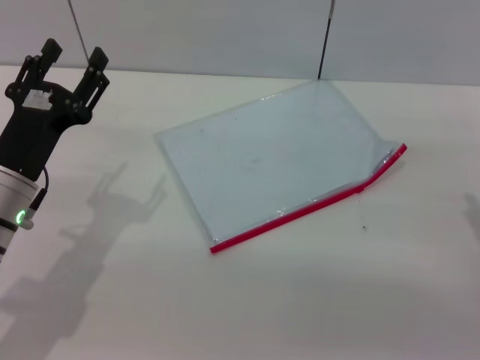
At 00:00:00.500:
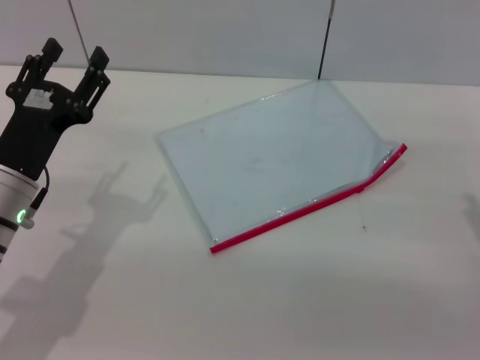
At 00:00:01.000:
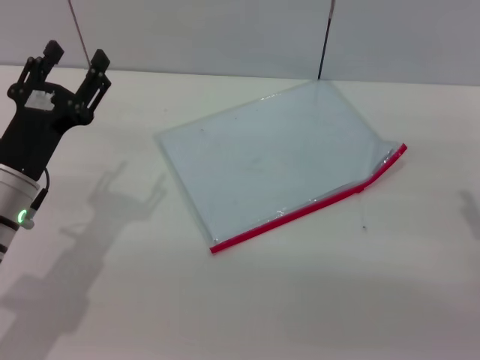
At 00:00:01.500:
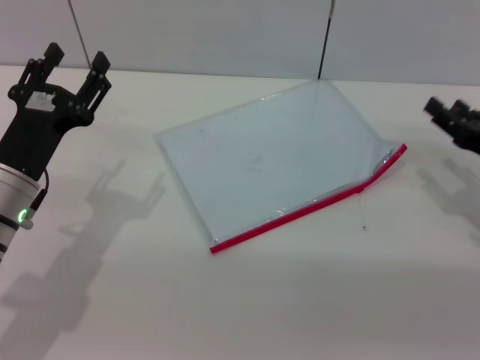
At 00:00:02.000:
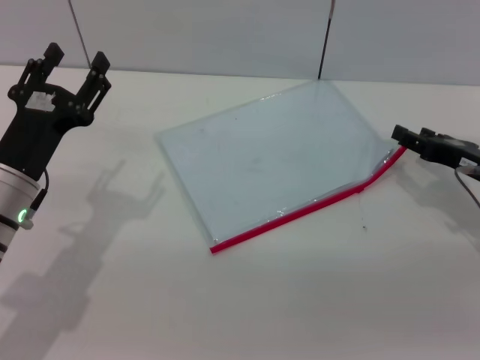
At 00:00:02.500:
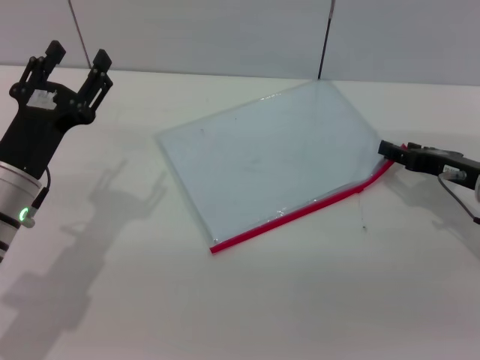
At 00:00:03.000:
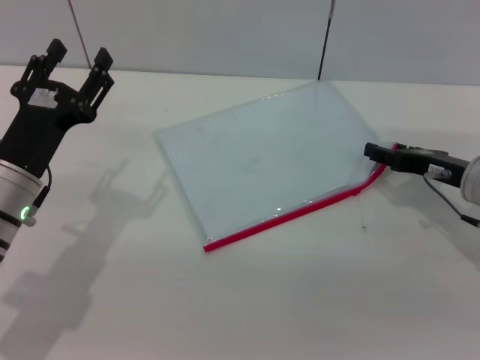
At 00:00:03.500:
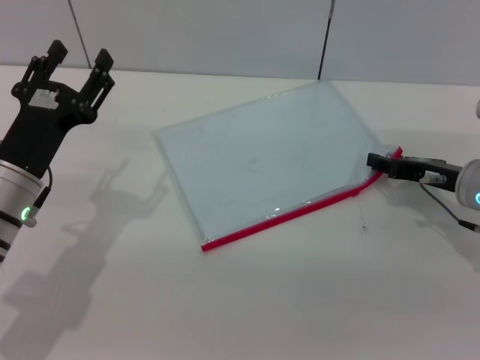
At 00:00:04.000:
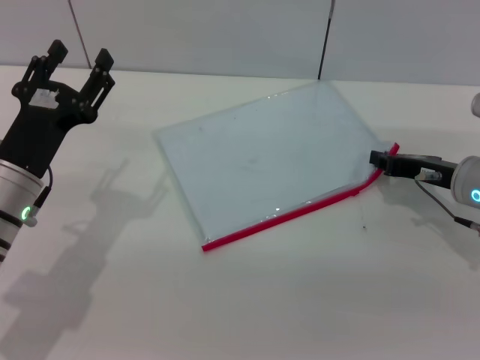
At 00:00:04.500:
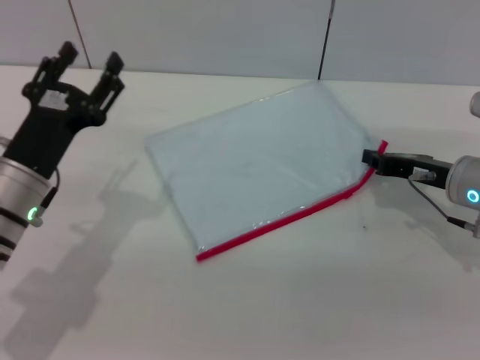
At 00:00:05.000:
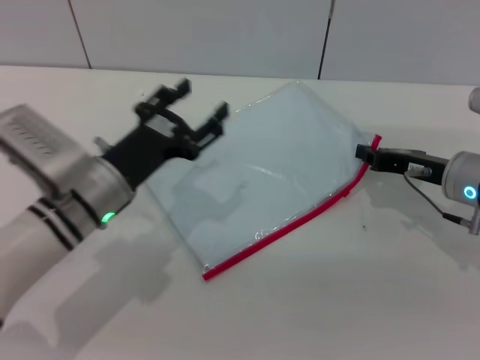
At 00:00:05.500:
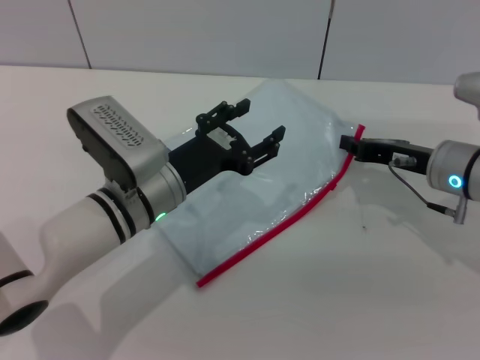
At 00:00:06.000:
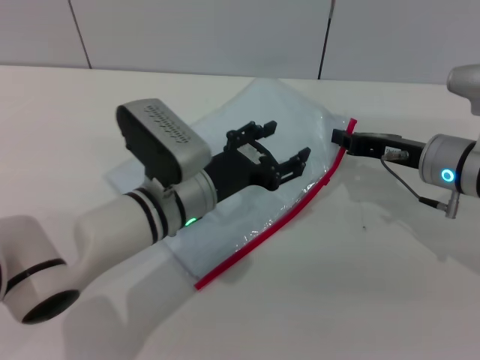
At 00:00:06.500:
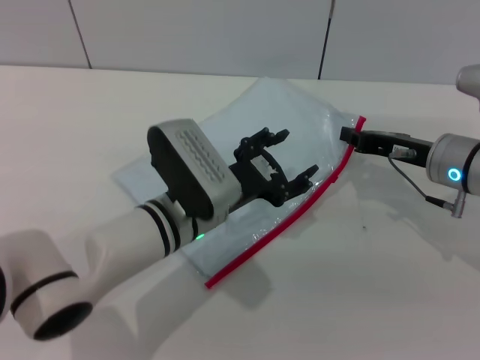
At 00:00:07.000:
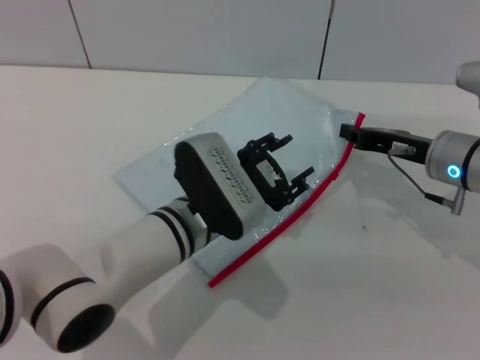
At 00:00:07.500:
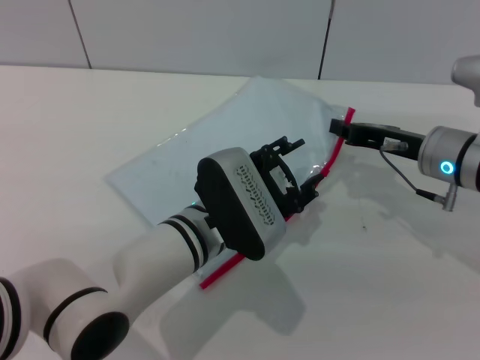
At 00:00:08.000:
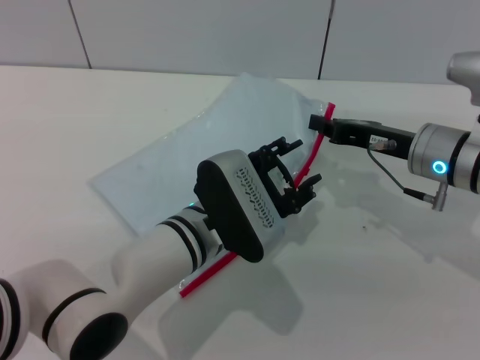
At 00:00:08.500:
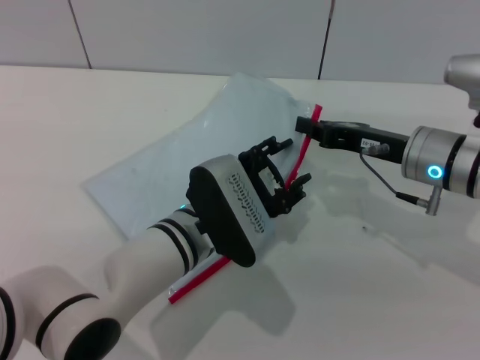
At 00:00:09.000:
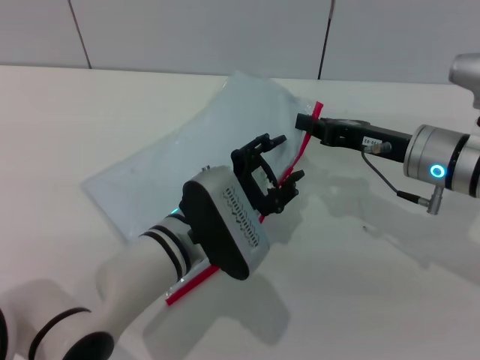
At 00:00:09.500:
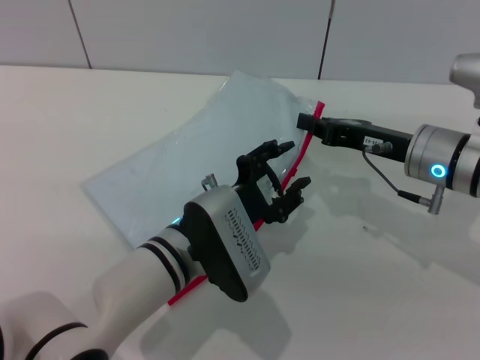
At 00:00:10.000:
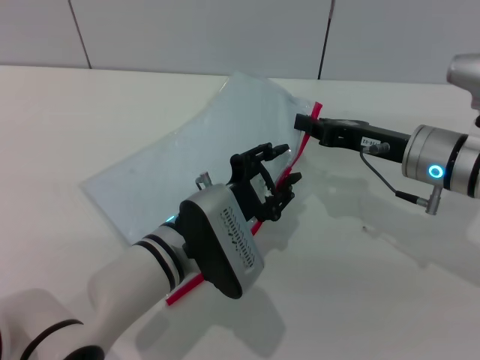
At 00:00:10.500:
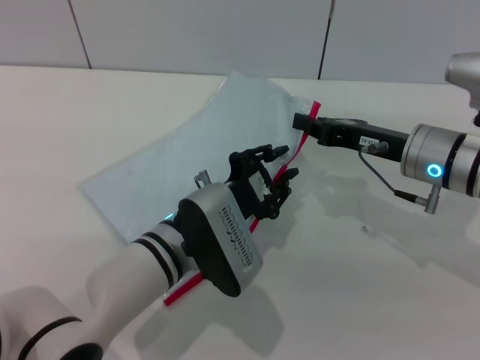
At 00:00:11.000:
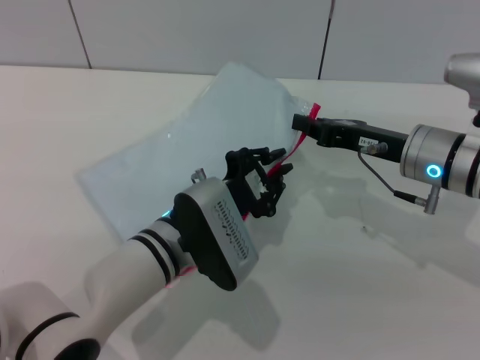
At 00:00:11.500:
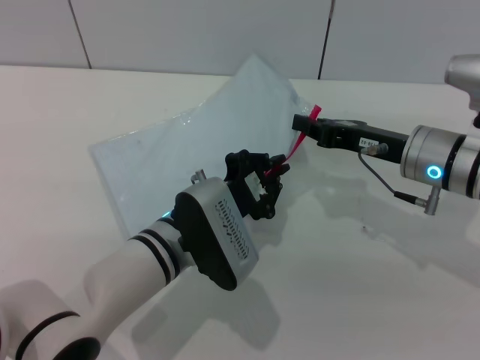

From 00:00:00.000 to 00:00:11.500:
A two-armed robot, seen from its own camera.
Step, from 00:00:00.000 to 00:00:07.000: Pick up the transparent plastic bag with the right gripper.
From 00:00:00.000 to 00:00:02.000: The right gripper shifts some 10 cm forward.
From 00:00:02.000 to 00:00:04.000: The right gripper closes.
From 00:00:04.000 to 00:00:06.000: The left gripper is displaced to the right by some 15 cm. The right gripper closes its fingers.
From 00:00:07.500 to 00:00:09.500: The grippers make only small movements.
From 00:00:09.500 to 00:00:11.500: The left gripper closes.

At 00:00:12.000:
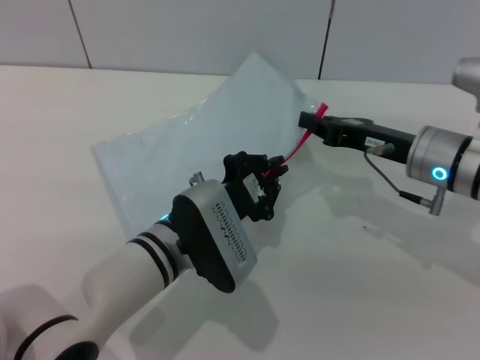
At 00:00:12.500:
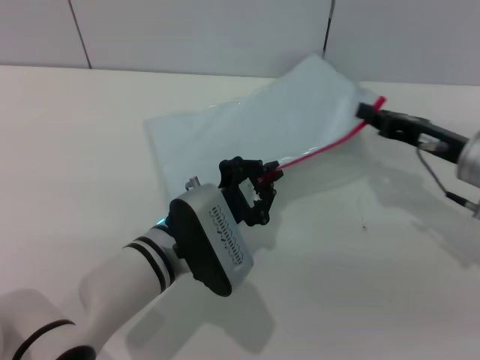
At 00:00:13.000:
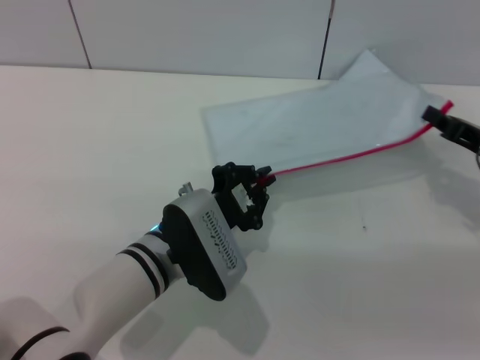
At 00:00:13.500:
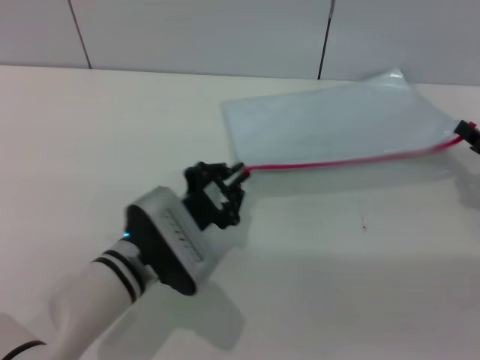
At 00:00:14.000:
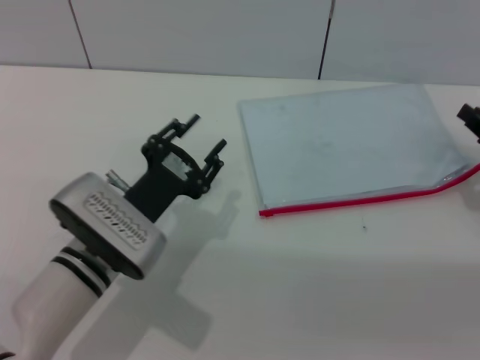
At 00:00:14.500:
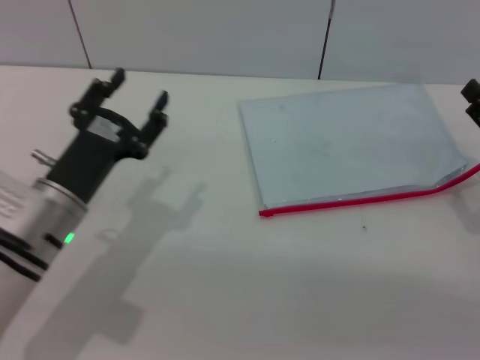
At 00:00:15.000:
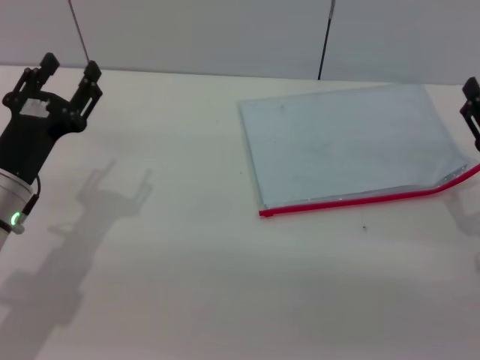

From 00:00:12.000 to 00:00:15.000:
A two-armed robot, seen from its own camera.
Step, from 00:00:14.000 to 00:00:14.500: Place the transparent plastic bag.
From 00:00:12.000 to 00:00:13.500: The right gripper is displaced to the right by approximately 15 cm.
From 00:00:13.500 to 00:00:15.000: The right gripper heads backward, covering about 5 cm, and opens, while the left gripper travels to the left by some 15 cm, and opens its fingers.

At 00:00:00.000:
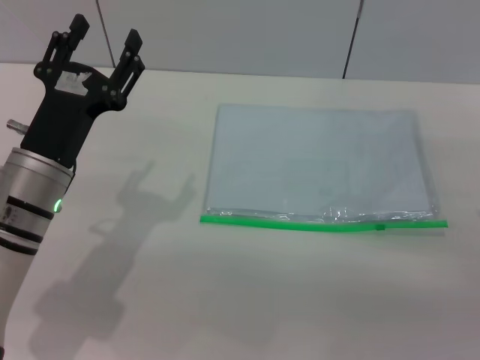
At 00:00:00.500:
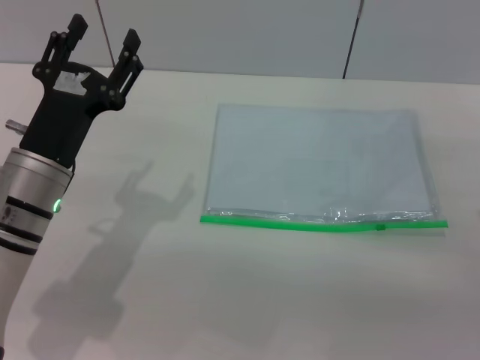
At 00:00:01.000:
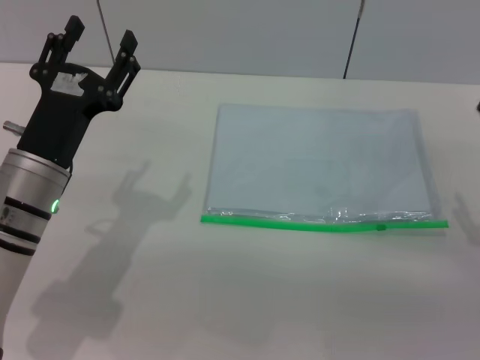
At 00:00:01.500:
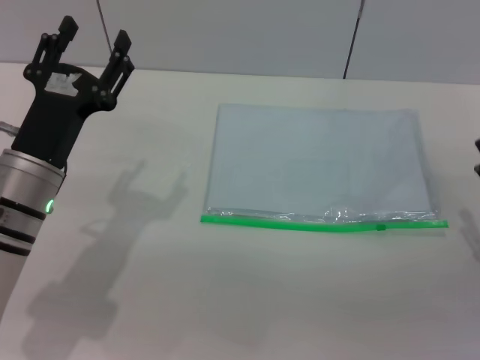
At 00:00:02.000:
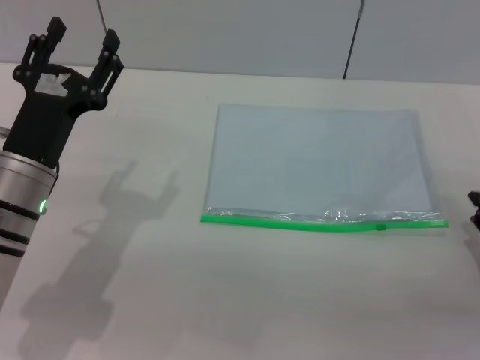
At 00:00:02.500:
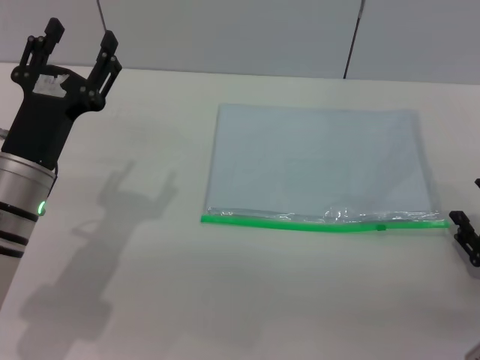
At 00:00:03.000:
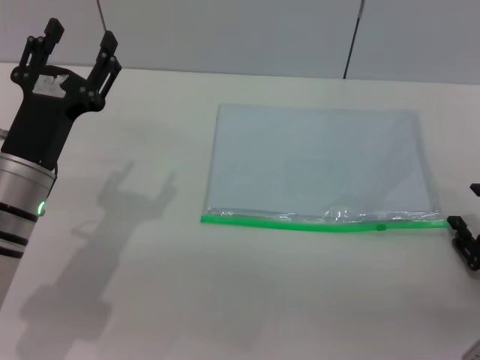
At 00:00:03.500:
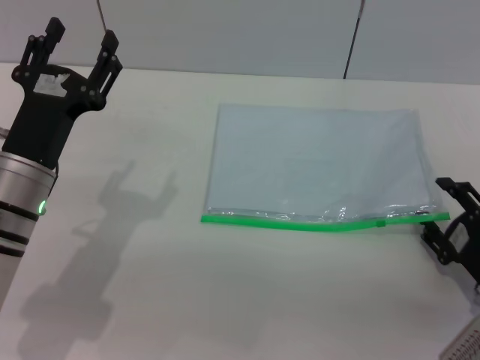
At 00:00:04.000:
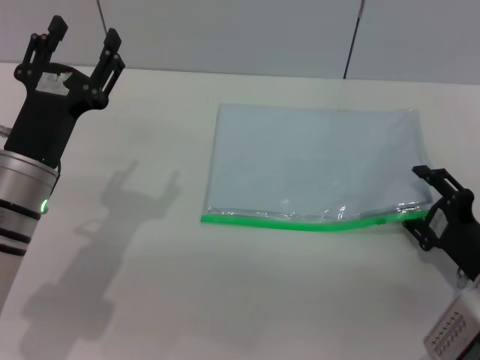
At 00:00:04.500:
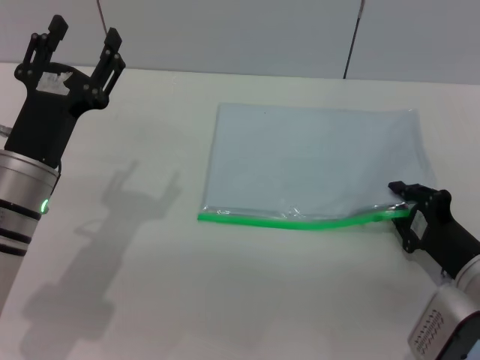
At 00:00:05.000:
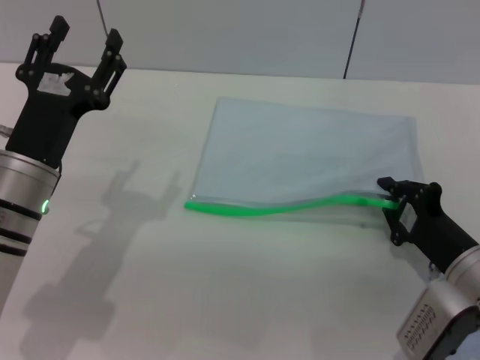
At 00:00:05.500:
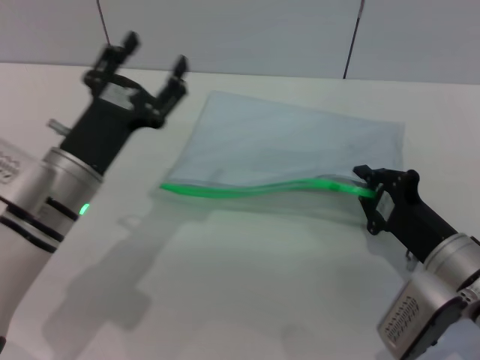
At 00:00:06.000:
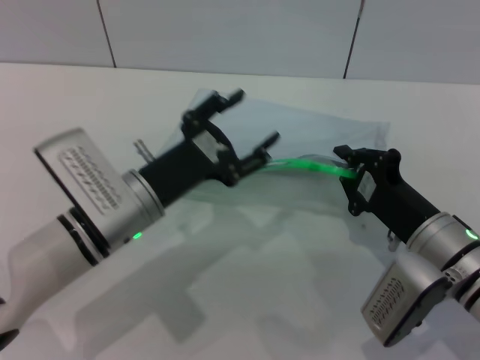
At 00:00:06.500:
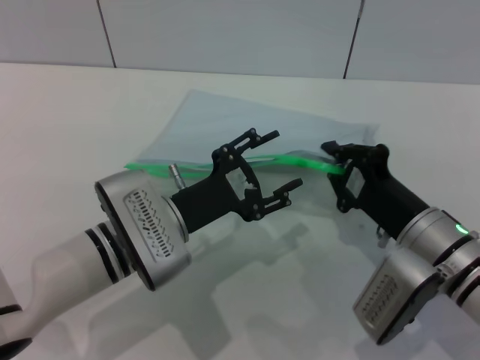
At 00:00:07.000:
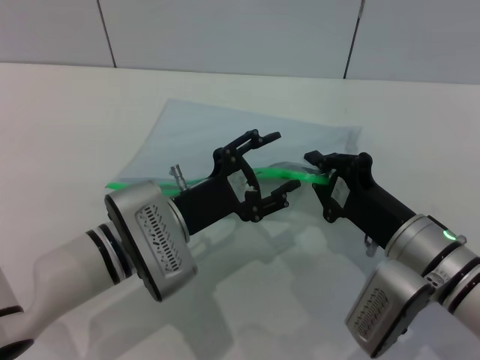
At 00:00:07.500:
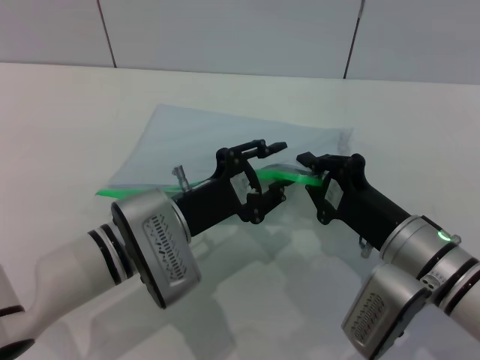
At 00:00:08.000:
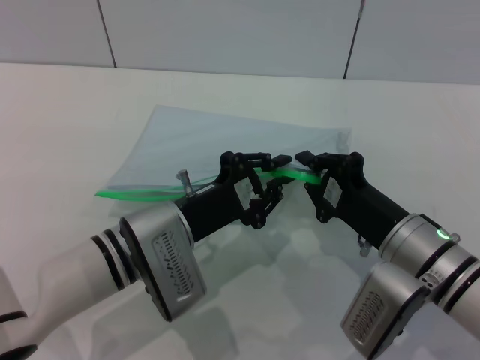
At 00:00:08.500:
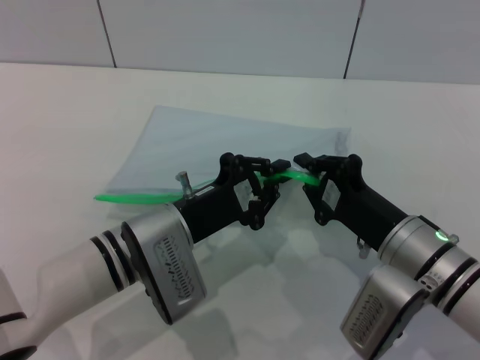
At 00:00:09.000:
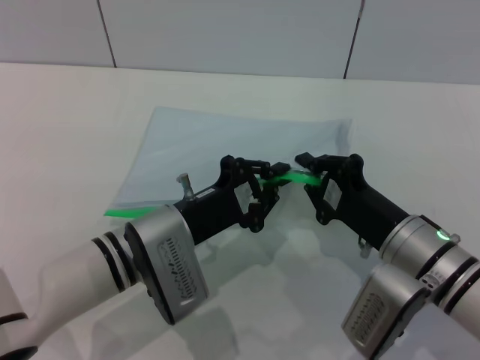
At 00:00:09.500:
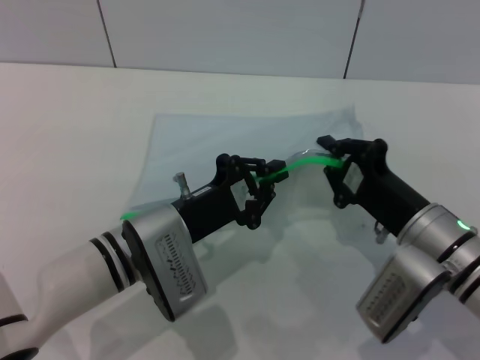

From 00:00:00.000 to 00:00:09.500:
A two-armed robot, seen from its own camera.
Step, from 00:00:00.000 to 00:00:05.000: Pick up the transparent plastic bag with the right gripper.
From 00:00:02.000 to 00:00:04.000: The right gripper heads to the left, covering roughly 5 cm.
From 00:00:04.000 to 00:00:05.500: The right gripper is displaced to the left by roughly 5 cm, and closes its fingers.
From 00:00:05.500 to 00:00:07.500: The left gripper goes approximately 5 cm to the right.
From 00:00:07.500 to 00:00:09.500: The left gripper closes up.

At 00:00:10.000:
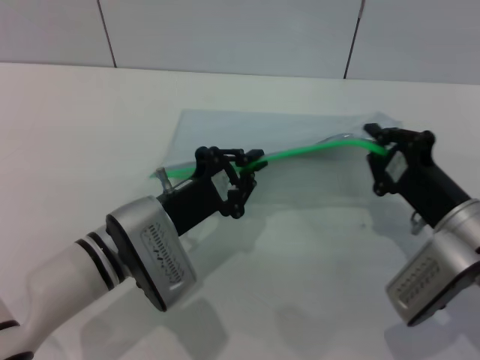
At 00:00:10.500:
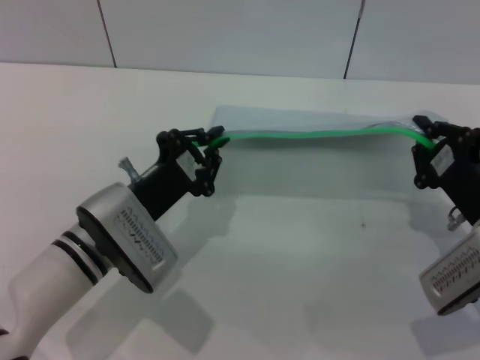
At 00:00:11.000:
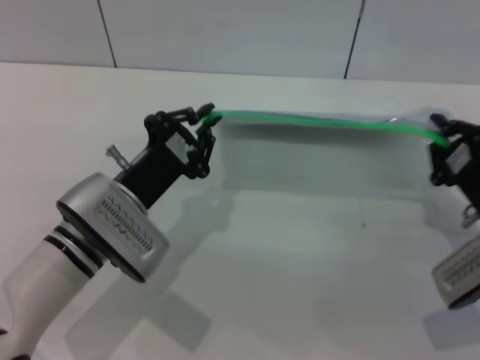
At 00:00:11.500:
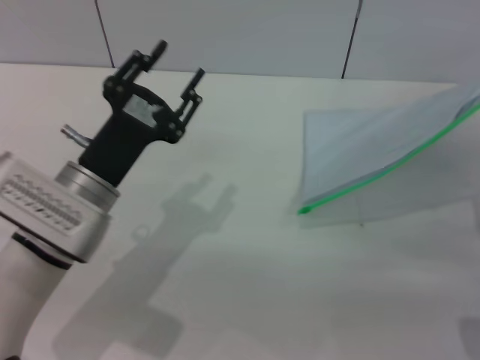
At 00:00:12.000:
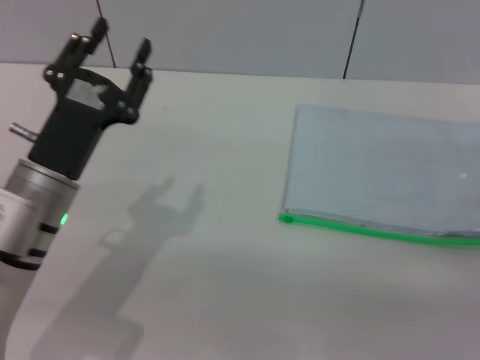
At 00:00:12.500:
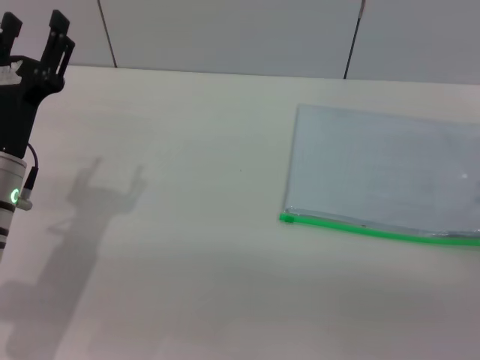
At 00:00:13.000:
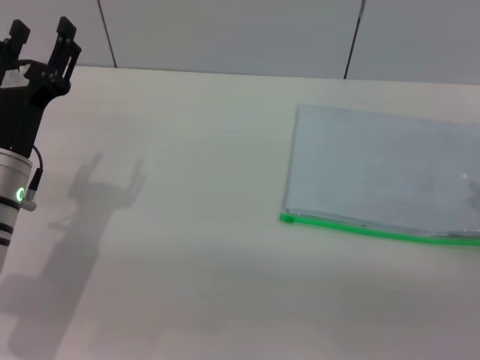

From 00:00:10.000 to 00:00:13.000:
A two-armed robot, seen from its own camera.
Step, from 00:00:11.500 to 00:00:12.000: Place the transparent plastic bag.
From 00:00:10.000 to 00:00:11.500: The right gripper goes some 10 cm to the right. Meanwhile the left gripper changes place by about 5 cm, and opens up.
From 00:00:11.500 to 00:00:13.000: The left gripper moves to the left, roughly 5 cm, and opens up; the right gripper opens.
